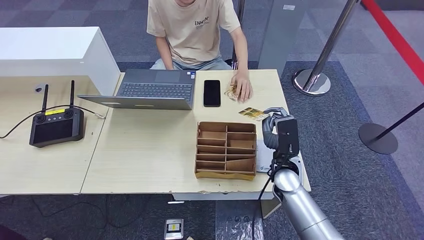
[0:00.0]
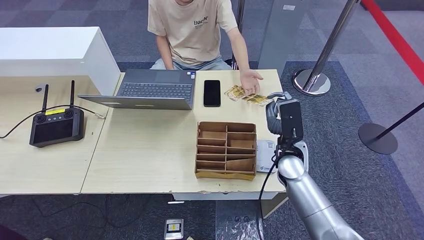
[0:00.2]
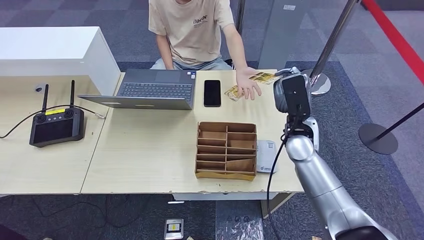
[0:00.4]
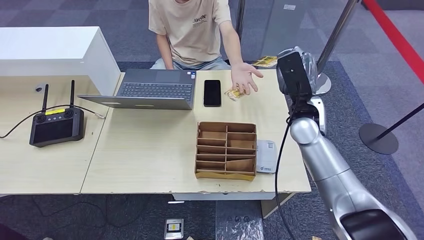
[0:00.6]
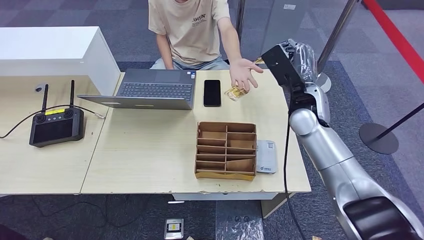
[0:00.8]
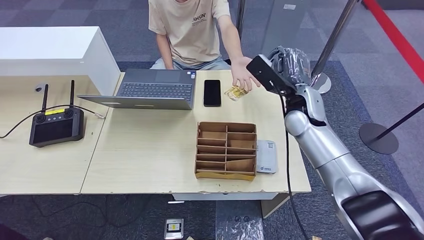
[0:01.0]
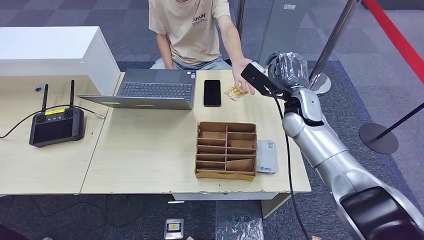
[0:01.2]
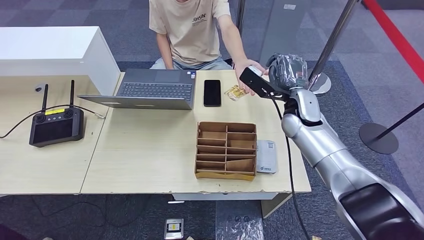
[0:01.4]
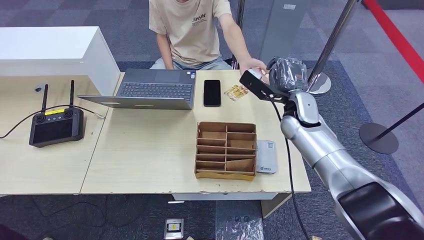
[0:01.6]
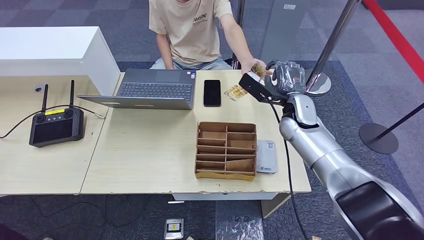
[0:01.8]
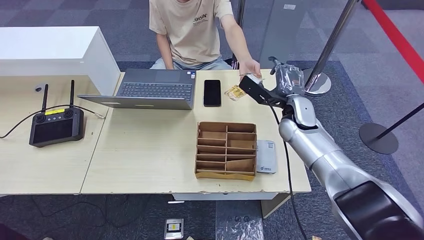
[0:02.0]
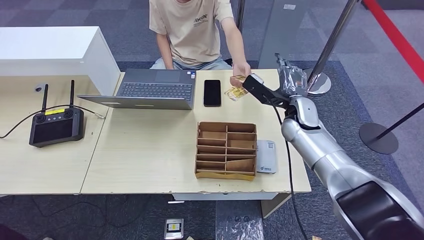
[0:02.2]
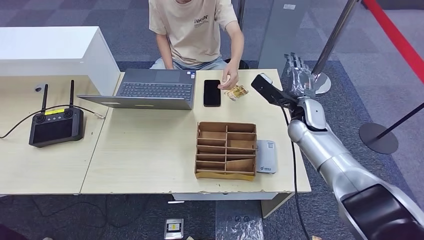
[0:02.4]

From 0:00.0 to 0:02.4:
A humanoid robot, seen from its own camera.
Step, from 0:00.0 to 0:02.4: Hand the room key to the person.
From 0:00.0 to 0:01.2: The right hand travels upward and forward by roughly 15 cm.
From 0:01.2 to 0:02.4: The right hand ends up roughly 5 cm from where it was.
